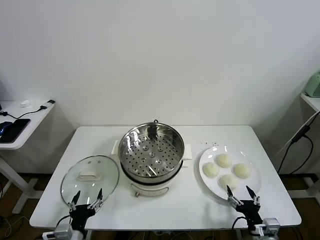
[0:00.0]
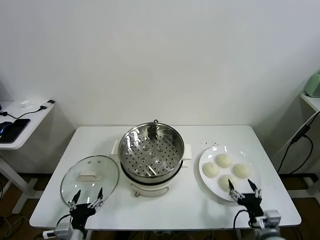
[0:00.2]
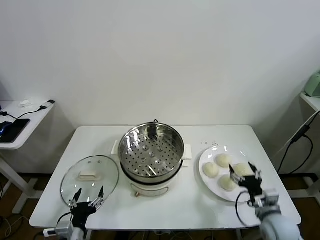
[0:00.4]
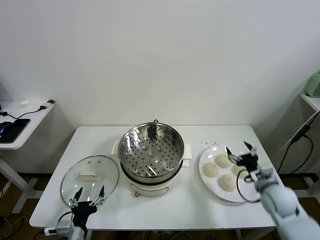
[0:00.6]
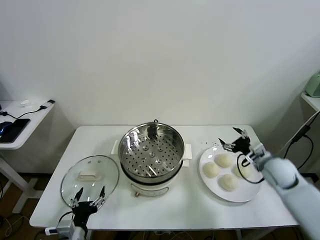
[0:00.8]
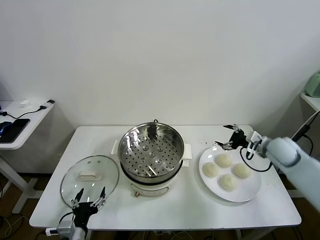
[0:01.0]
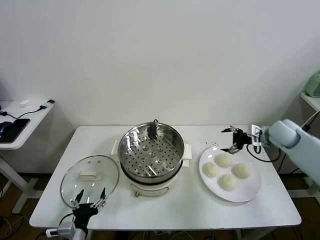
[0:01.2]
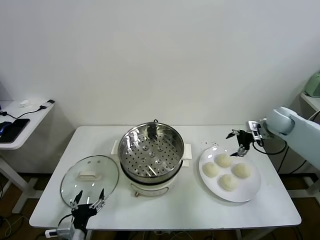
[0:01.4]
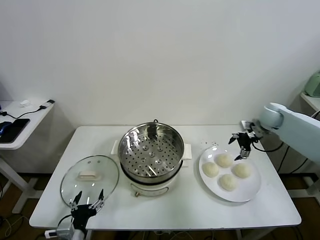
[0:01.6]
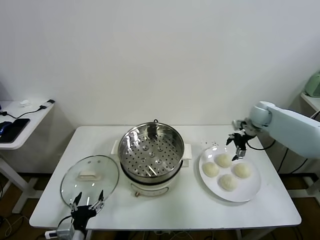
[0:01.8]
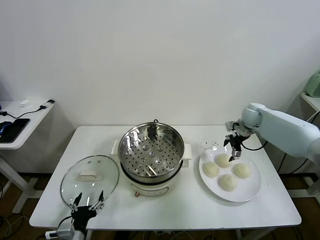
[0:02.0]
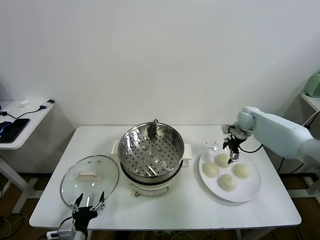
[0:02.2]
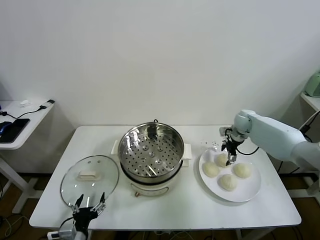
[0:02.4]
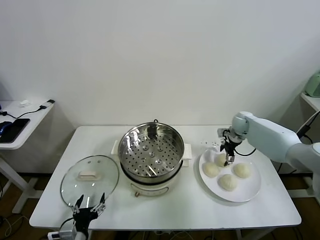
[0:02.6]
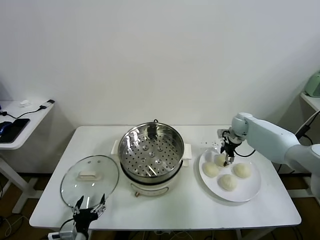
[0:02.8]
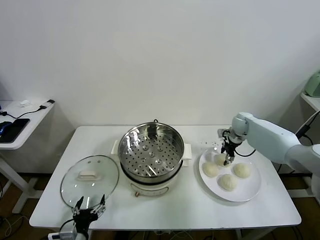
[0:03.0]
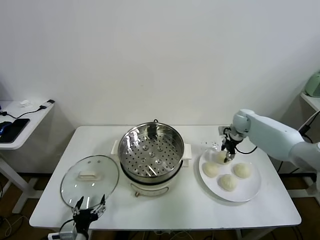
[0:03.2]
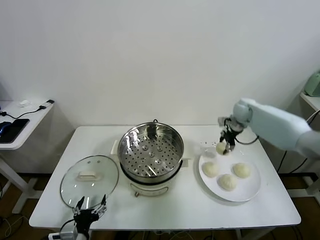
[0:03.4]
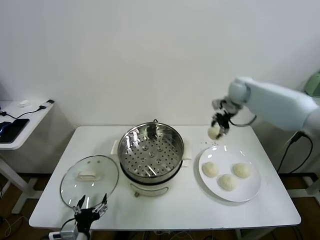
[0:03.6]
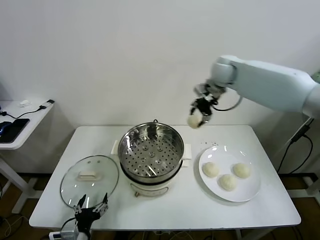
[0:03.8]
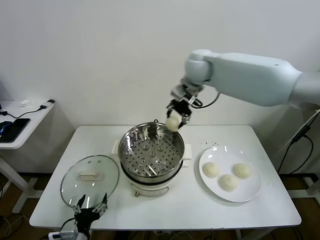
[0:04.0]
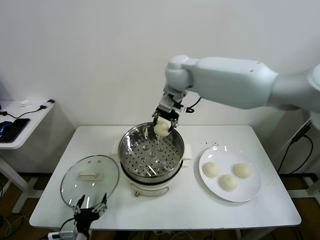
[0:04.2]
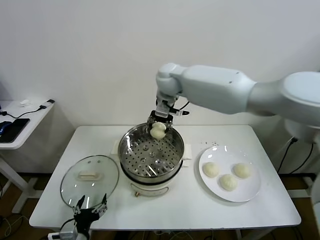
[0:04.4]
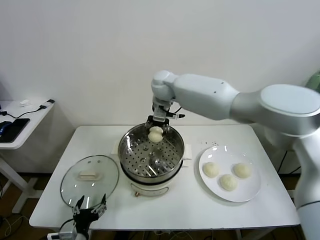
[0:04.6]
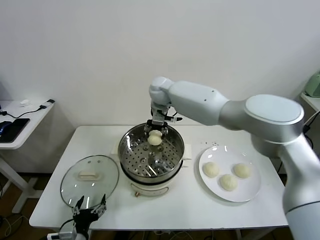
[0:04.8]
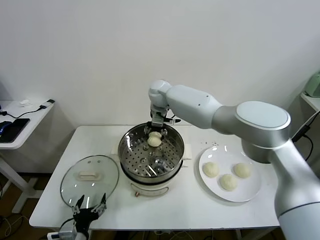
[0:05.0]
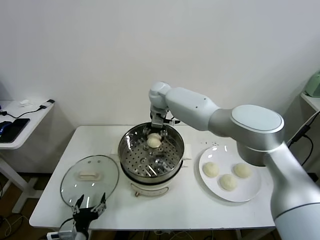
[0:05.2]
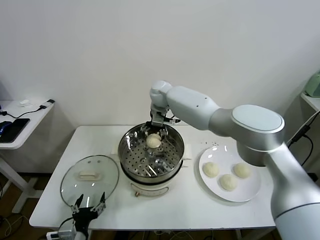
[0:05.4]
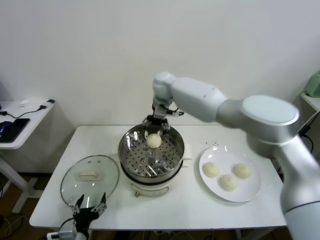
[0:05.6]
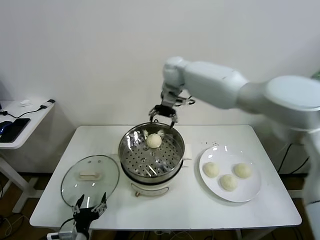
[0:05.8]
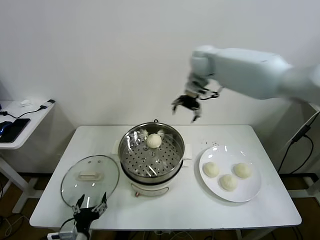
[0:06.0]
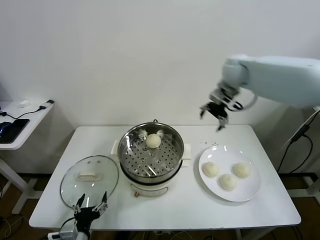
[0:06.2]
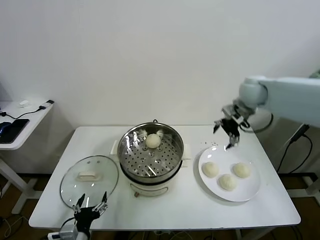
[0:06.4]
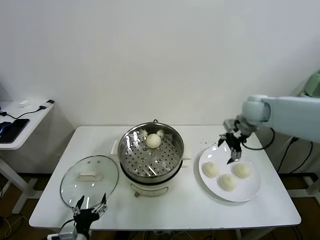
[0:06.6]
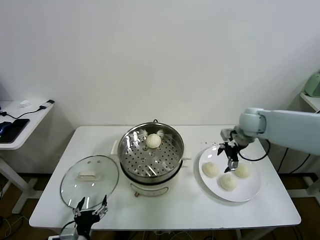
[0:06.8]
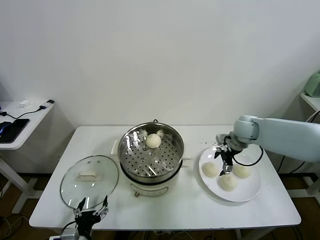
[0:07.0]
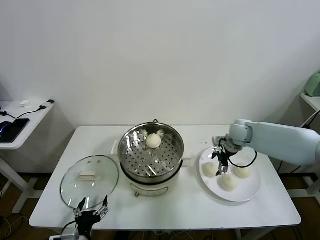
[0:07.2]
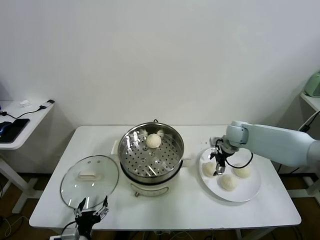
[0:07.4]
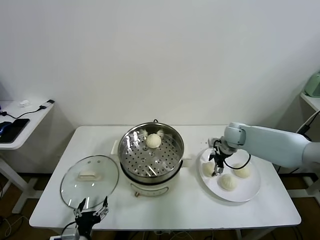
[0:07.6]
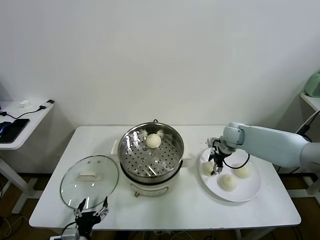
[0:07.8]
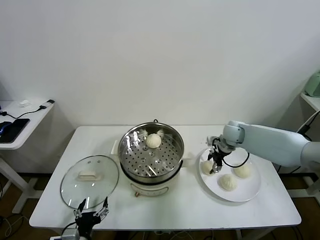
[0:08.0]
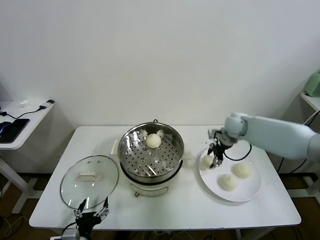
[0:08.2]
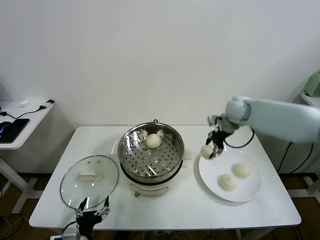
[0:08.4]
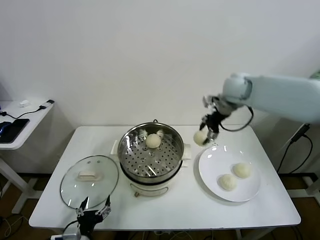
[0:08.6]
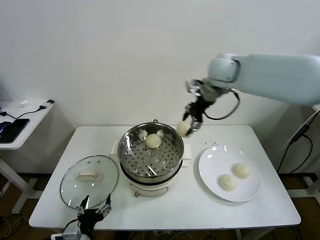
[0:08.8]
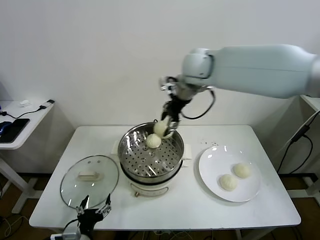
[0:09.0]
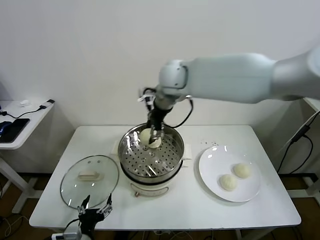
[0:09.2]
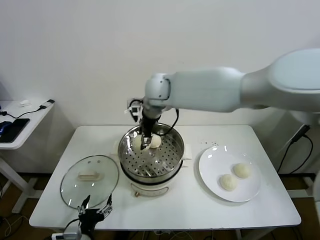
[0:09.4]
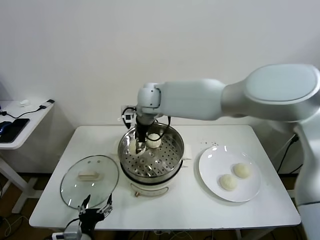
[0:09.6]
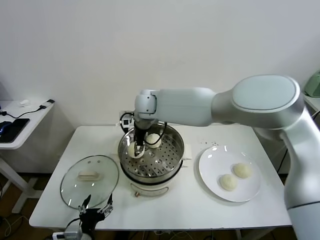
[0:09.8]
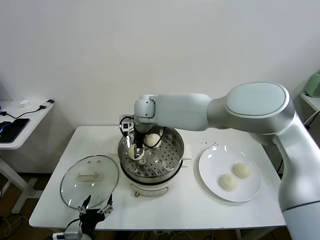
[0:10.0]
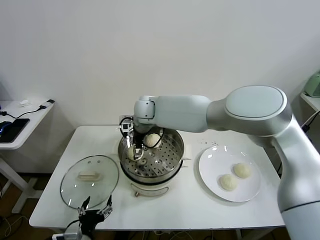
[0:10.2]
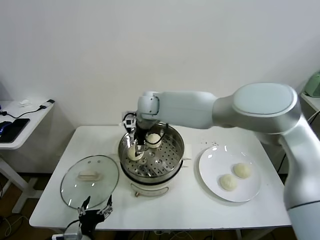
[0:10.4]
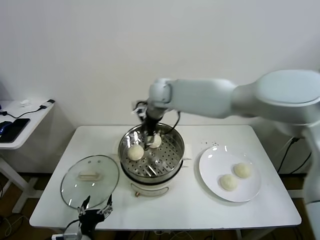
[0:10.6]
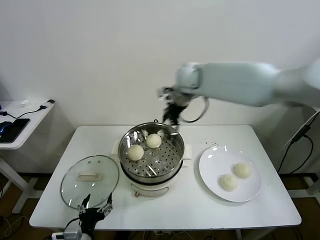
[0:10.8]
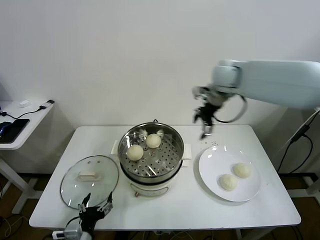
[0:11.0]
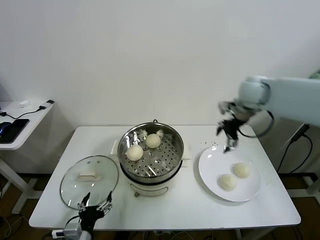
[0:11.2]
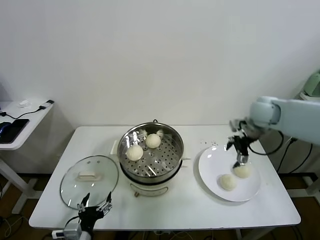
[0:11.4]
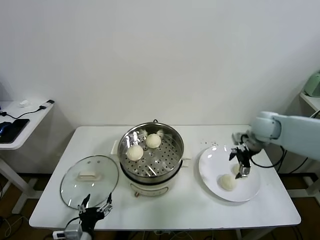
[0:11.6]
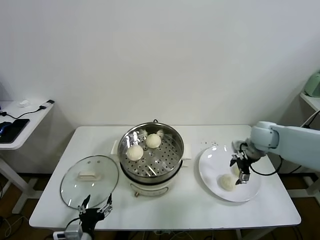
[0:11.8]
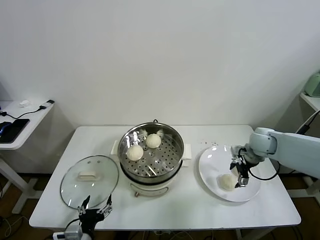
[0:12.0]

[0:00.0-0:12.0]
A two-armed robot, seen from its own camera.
Task of the whole recording: take steamed baozi put them in steamer.
Step, 0.0 to 3.0 s: Grasp the baozi in the plate with right gripper.
Step, 3.2 to 5.4 s: Place the baozi on the steamer with right gripper.
Step, 5.6 to 7.8 s: Grasp the baozi in the plate with right gripper.
Step, 8.0 to 10.4 s: Place the baozi on the steamer with right gripper.
1.6 to 3.0 s: The right gripper is displaced downward by some 5 cm, and closes.
3.0 to 4.4 s: The right gripper shifts about 40 cm to the left and upward.
4.4 to 6.0 s: The right gripper moves to the right, approximately 20 cm, and opens.
6.0 to 7.6 s: The right gripper moves downward, about 25 cm.
7.6 to 9.0 s: The right gripper goes roughly 35 cm upward and to the left, and closes.
9.0 to 10.4 s: The right gripper moves downward and to the left, some 15 cm, and opens its fingers.
10.4 to 12.0 s: The right gripper is displaced to the right by roughly 40 cm.

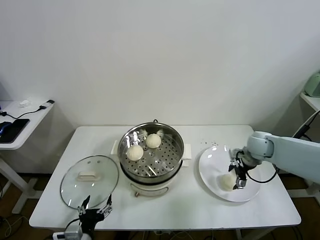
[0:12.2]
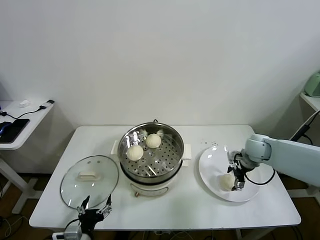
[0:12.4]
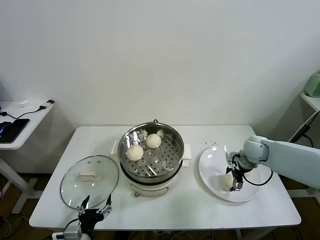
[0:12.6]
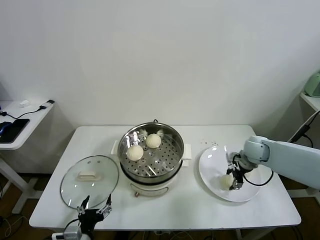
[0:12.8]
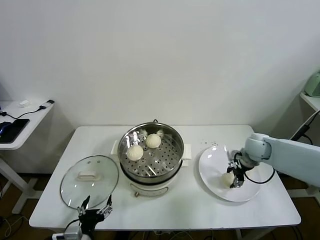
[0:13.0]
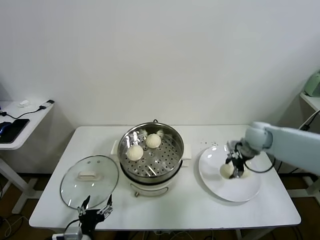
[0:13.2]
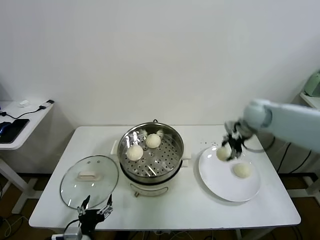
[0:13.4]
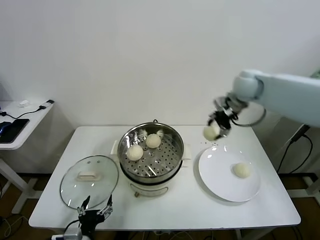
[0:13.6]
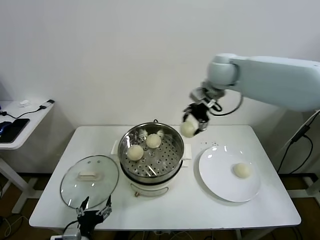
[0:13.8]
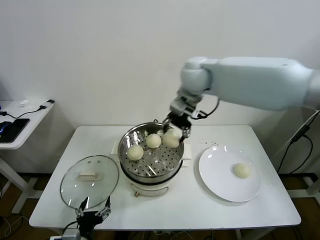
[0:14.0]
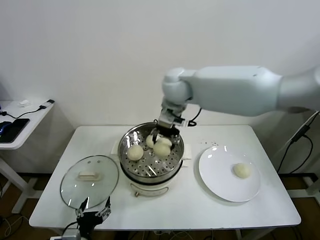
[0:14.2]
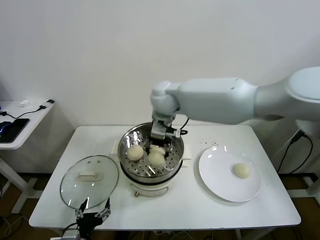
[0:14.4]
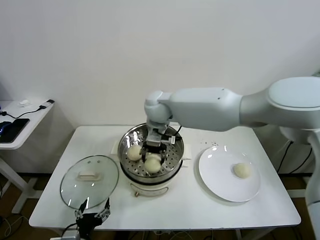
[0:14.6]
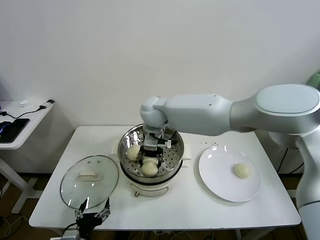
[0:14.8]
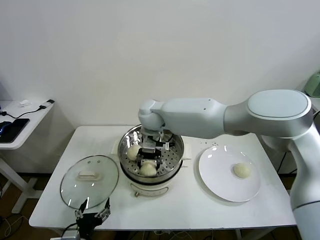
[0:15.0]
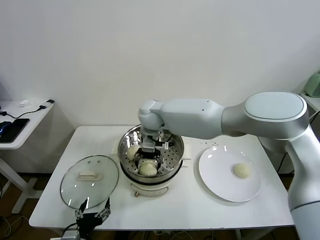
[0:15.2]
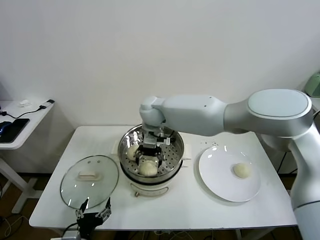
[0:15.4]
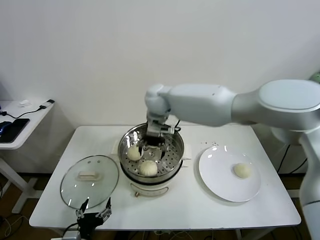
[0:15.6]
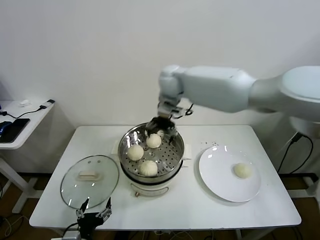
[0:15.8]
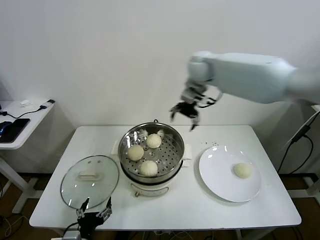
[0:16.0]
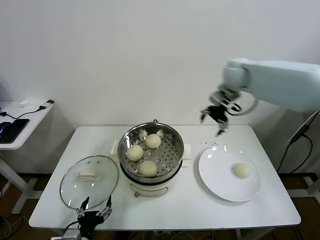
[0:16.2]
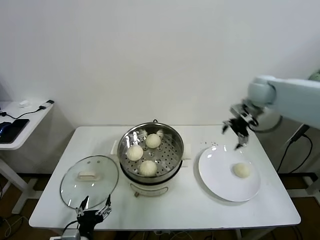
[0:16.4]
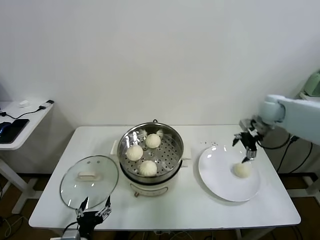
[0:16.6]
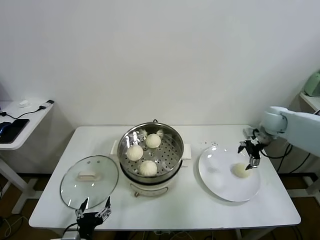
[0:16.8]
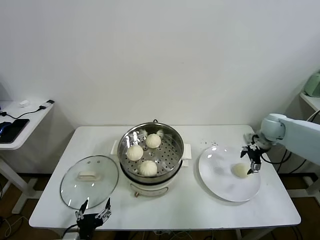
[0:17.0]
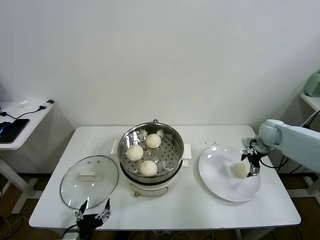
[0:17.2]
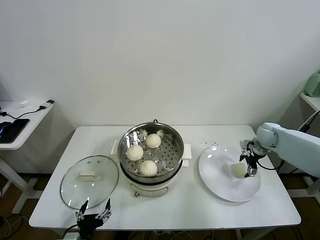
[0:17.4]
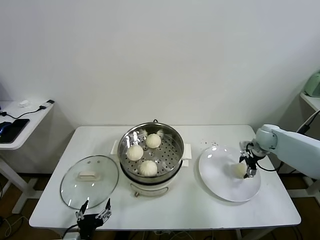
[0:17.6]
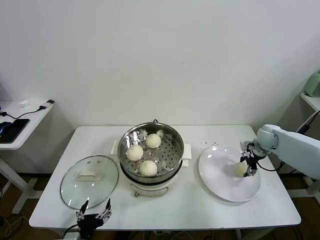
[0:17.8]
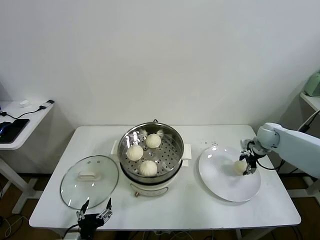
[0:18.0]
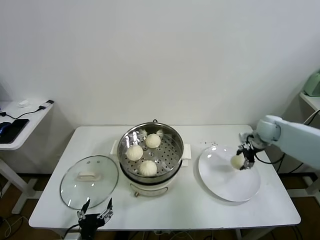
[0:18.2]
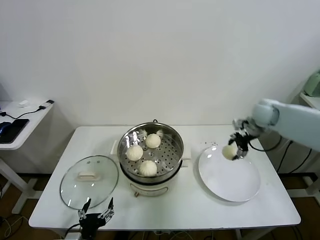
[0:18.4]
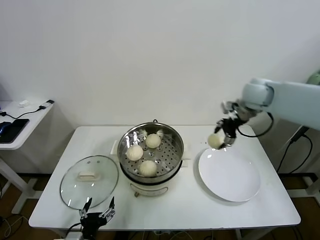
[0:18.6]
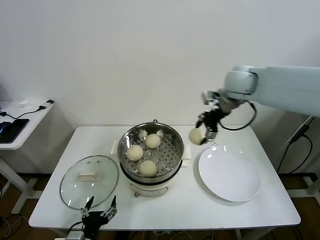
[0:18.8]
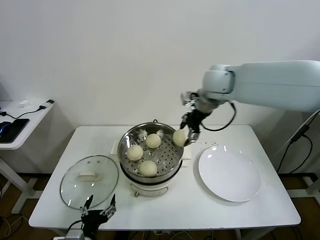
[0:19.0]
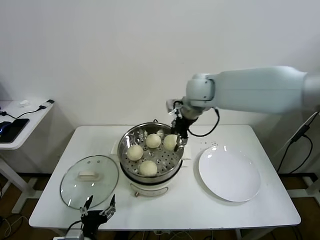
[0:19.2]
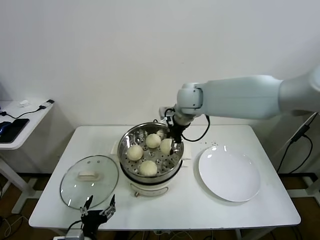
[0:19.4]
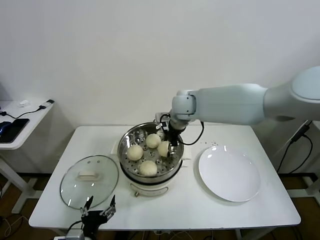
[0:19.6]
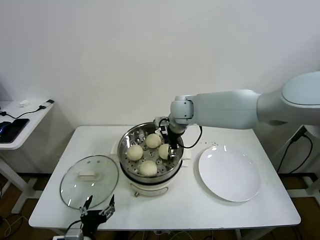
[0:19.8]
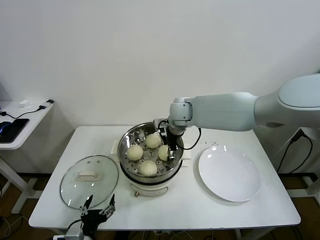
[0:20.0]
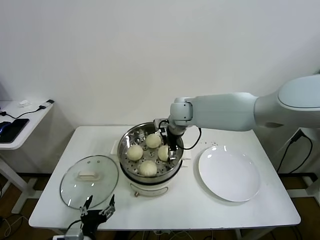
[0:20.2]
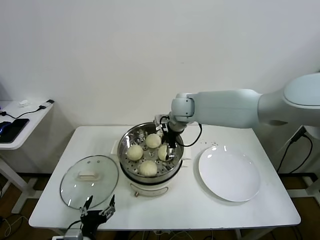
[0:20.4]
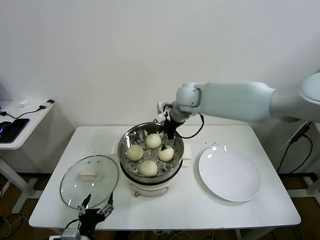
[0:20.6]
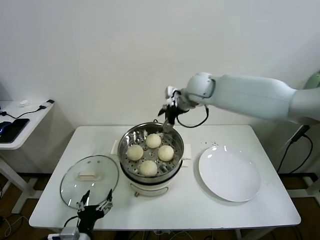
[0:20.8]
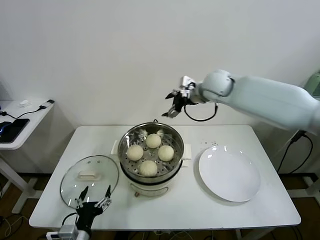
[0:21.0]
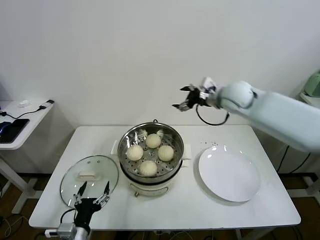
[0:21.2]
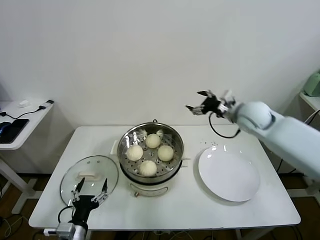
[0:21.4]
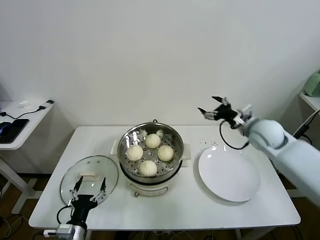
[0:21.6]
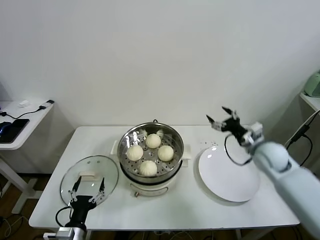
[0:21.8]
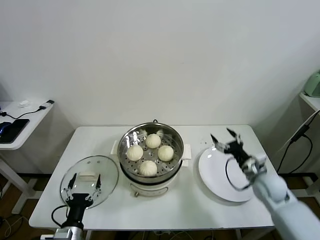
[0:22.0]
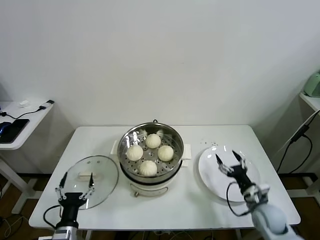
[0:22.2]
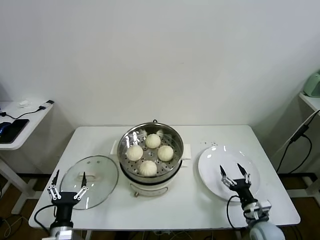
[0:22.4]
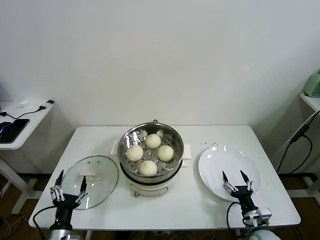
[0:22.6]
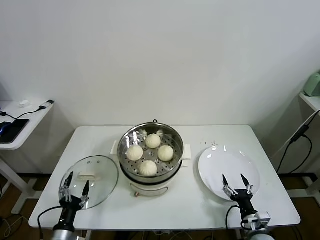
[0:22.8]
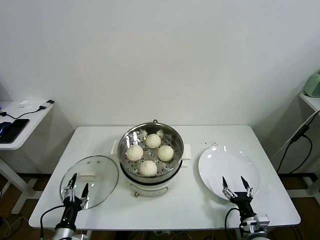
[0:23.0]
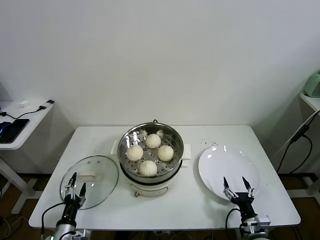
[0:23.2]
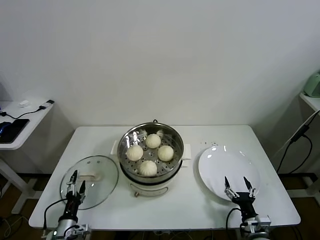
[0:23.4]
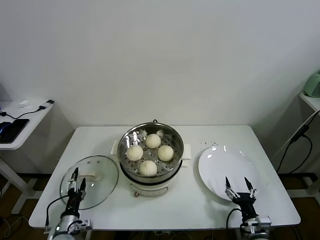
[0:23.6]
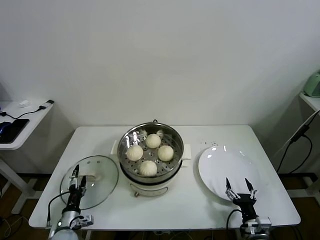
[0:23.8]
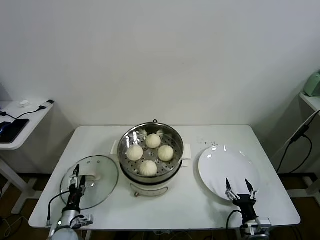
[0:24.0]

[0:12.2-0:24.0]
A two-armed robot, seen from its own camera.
Task of the whole recording: take steamed baozi put them in steamer.
Step, 13.0 to 15.4 s: Place the baozi on the steamer with right gripper.
Step, 15.6 to 18.0 s: Grasp the baozi in the plate with right gripper.
Step, 18.2 to 20.2 s: Place the baozi on the steamer with right gripper.
12.2 to 13.6 s: The right gripper shifts some 25 cm upward and to the left, and closes.
13.6 to 15.2 s: The right gripper is displaced to the left and downward by roughly 30 cm, and opens.
15.2 to 16.6 s: The right gripper moves to the right, some 40 cm.
16.6 to 18.2 s: The right gripper goes about 5 cm downward, and closes up.
18.2 to 19.6 s: The right gripper heads to the left, covering about 30 cm.
19.6 to 21.0 s: The right gripper goes some 10 cm to the right and upward, and opens its fingers.
21.0 to 22.6 s: The left gripper is displaced to the left and downward by some 10 cm. Meanwhile the right gripper moves downward and backward, some 50 cm.
22.6 to 24.0 s: The left gripper travels forward and downward by about 10 cm.
